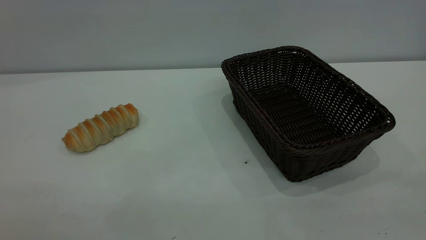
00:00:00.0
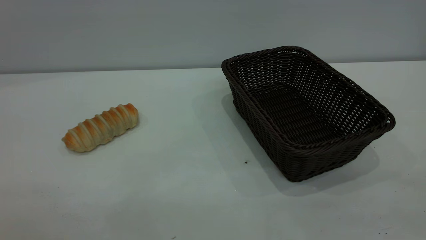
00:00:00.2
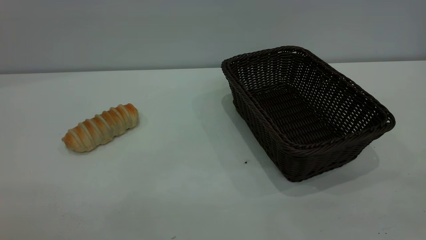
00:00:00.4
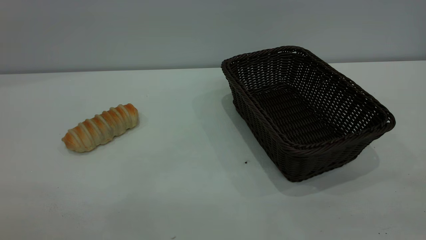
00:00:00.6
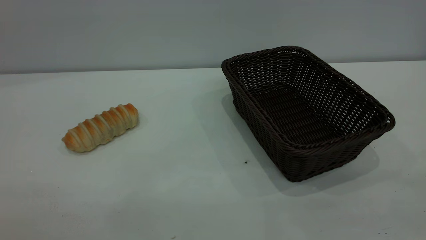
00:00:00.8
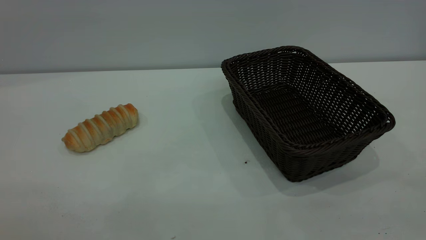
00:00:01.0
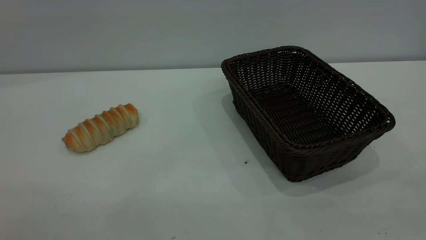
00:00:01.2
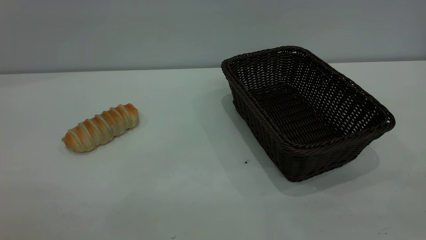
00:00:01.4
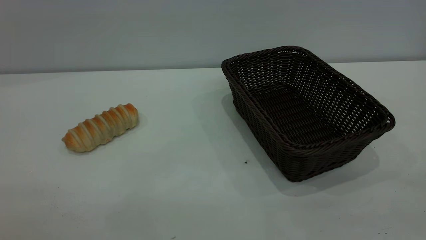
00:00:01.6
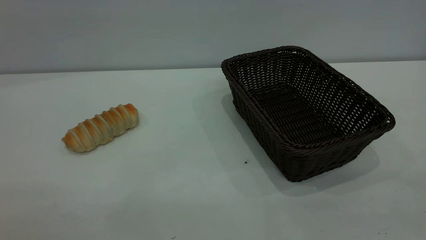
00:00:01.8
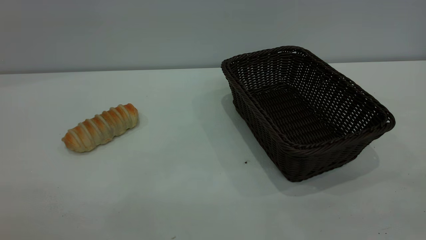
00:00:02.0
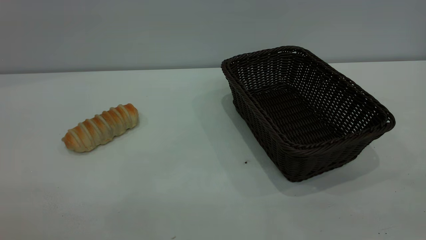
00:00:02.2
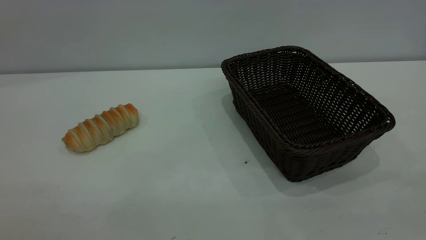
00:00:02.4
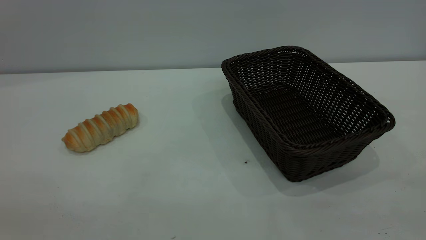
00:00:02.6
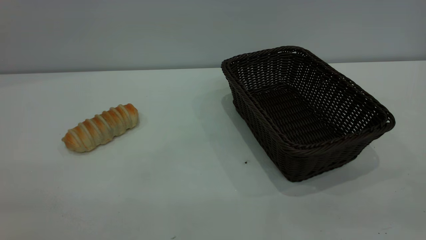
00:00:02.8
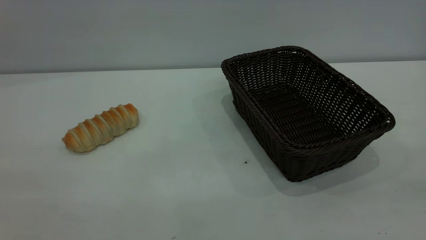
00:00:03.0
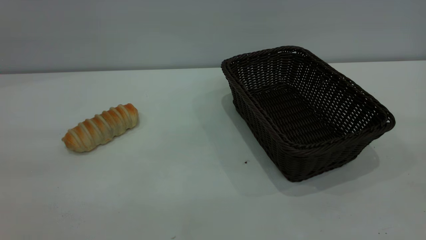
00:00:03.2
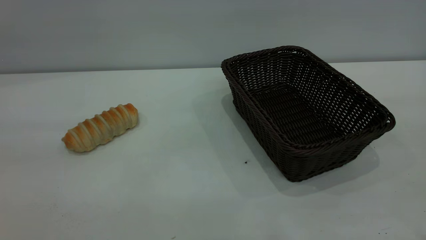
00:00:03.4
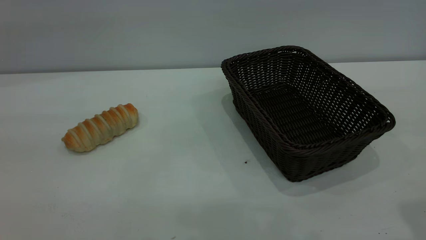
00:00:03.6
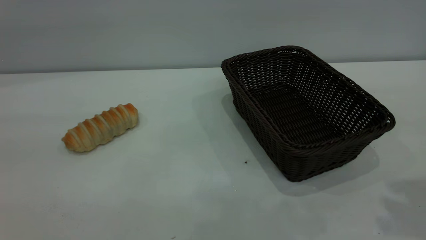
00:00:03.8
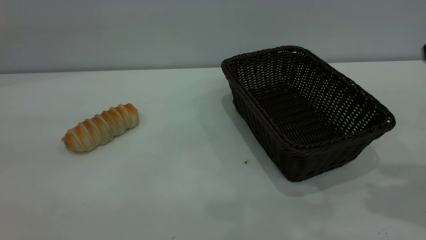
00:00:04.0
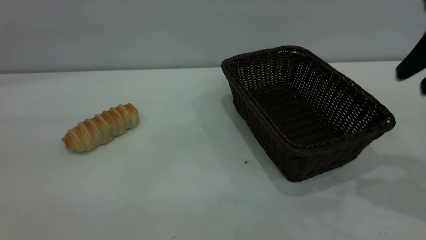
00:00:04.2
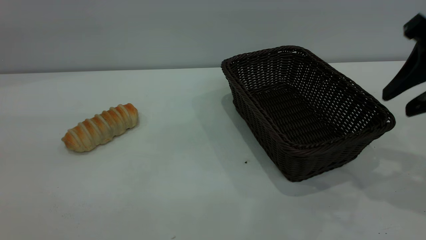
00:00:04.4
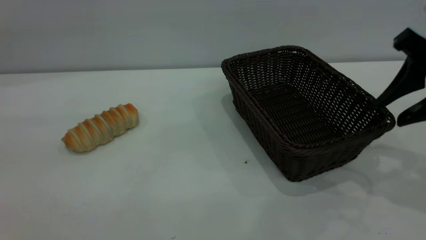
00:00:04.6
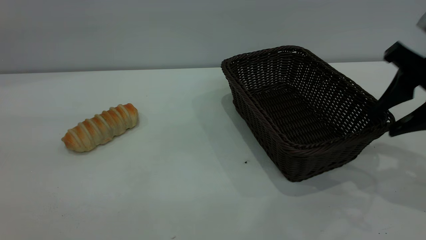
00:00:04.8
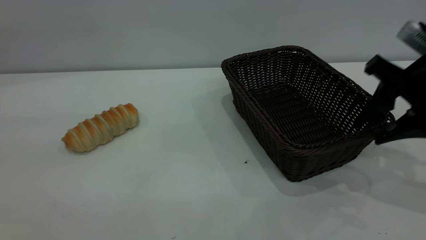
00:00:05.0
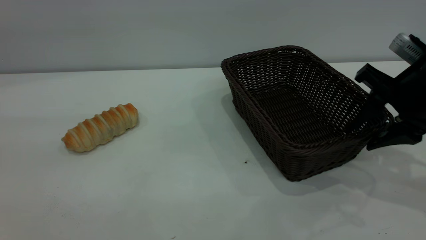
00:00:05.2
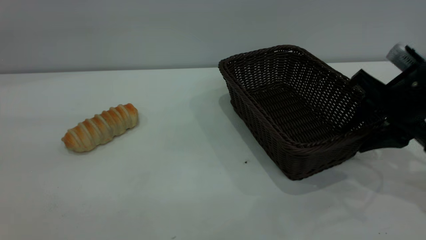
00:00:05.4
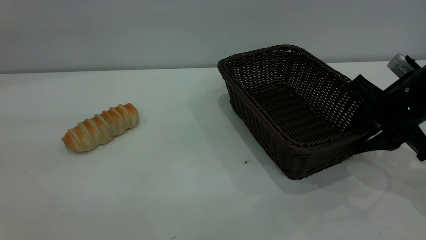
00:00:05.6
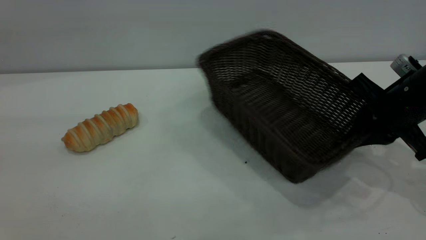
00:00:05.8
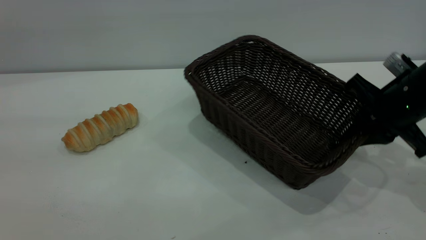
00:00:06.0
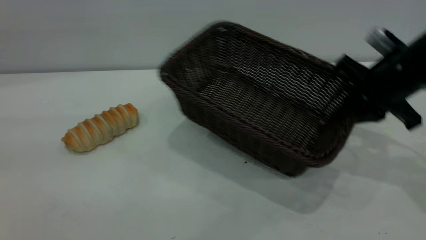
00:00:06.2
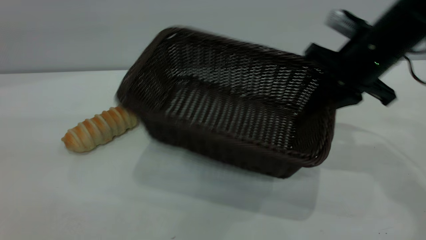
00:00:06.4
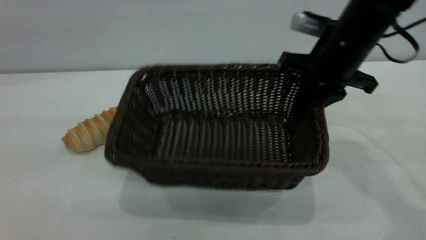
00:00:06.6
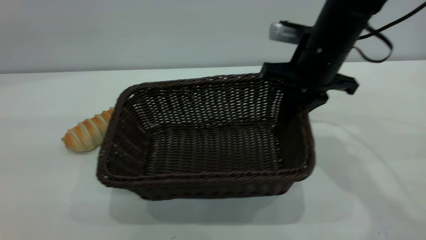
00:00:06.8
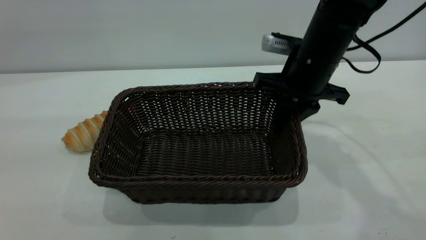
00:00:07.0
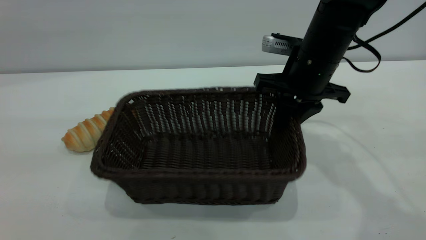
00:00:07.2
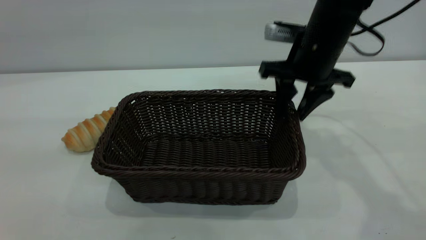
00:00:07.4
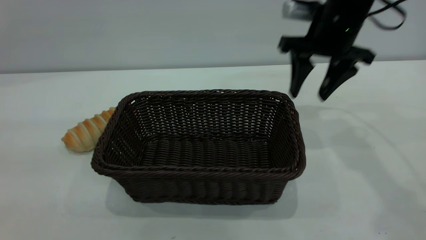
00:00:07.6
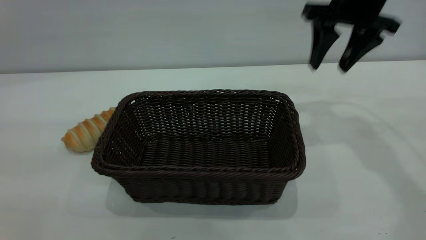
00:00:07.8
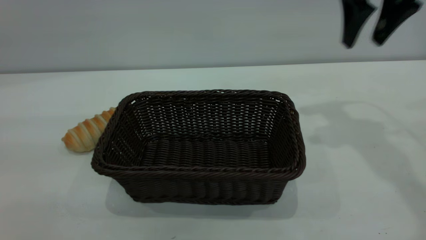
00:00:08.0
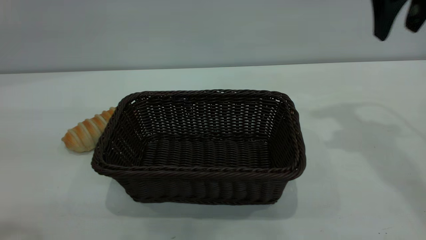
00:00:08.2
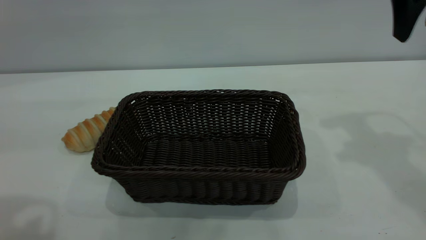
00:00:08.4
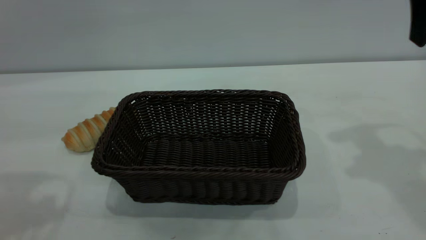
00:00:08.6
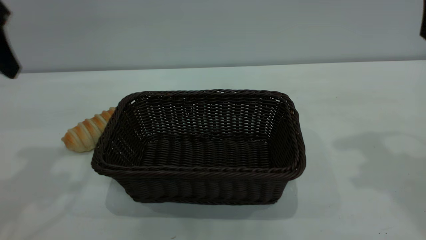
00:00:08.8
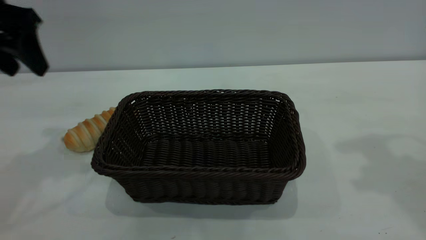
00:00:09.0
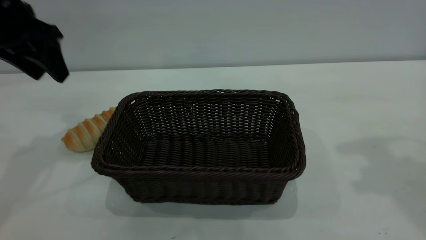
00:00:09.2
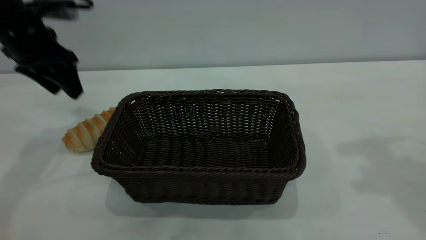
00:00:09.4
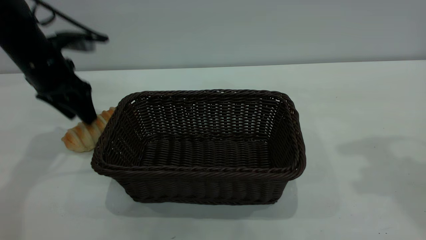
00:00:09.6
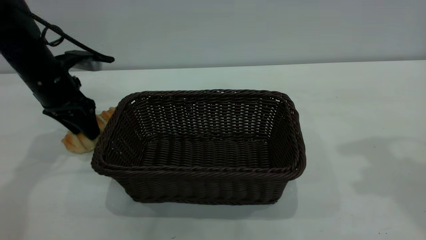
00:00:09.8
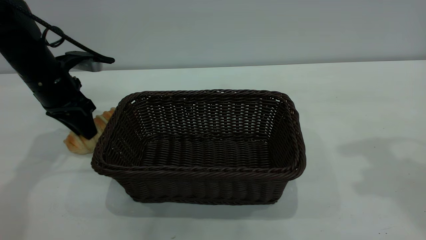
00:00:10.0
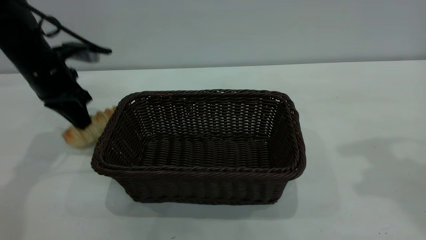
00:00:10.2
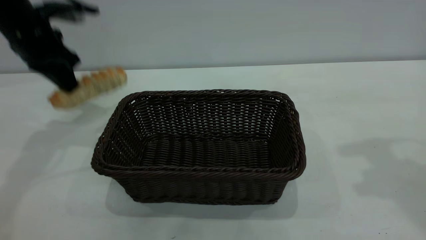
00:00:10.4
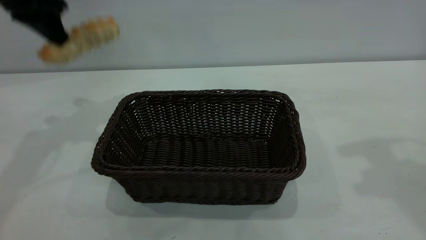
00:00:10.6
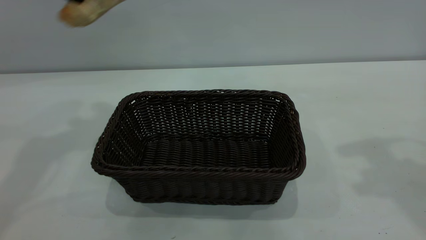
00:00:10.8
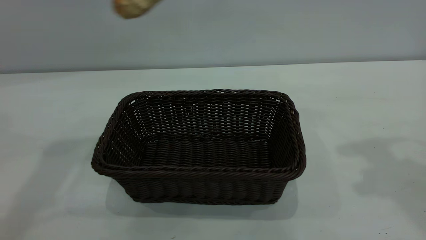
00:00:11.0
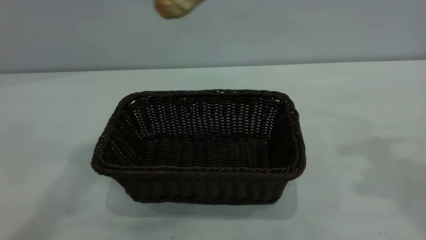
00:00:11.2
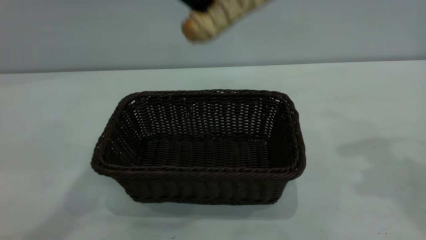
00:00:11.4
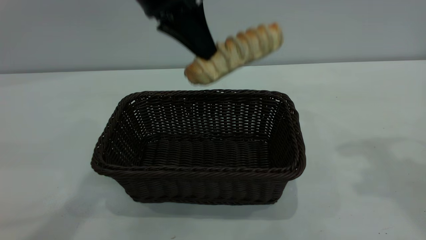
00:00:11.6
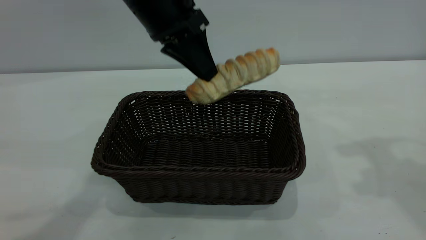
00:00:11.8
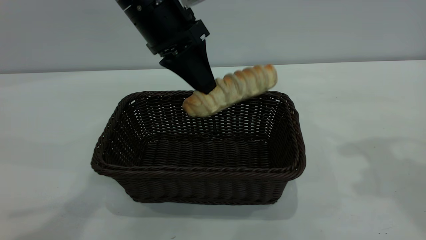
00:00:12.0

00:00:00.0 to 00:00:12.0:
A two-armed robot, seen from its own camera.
Task of the whole recording: One hand grasps the black basket and places it in the middle of the table, while the other hand picks up the long bread and puts it into the black basket.
Step, 00:00:00.0 to 00:00:07.4: Move the basket to the center of view.
00:00:00.0 to 00:00:01.6: Both grippers stay about where they are.
00:00:03.0 to 00:00:04.4: The right gripper heads forward and downward, covering some 30 cm.
00:00:04.4 to 00:00:06.0: The right gripper moves downward and forward, roughly 10 cm, and closes up.
00:00:06.0 to 00:00:07.6: The right gripper heads forward, to the left and upward, covering approximately 15 cm, and opens its fingers.
00:00:07.6 to 00:00:09.0: The left gripper moves forward, some 25 cm, while the right gripper moves upward, backward and to the right, some 20 cm.
00:00:09.0 to 00:00:10.4: The left gripper heads forward and downward, covering approximately 10 cm, and closes.
00:00:10.4 to 00:00:12.0: The left gripper goes roughly 20 cm to the right.

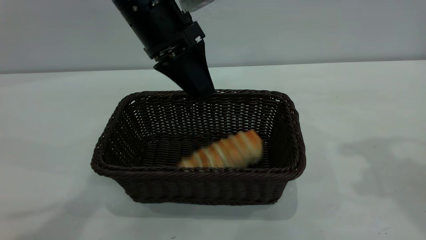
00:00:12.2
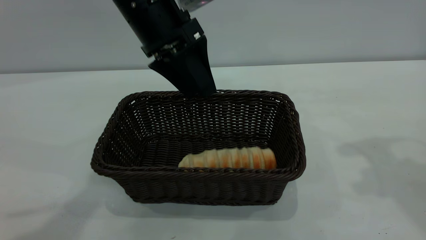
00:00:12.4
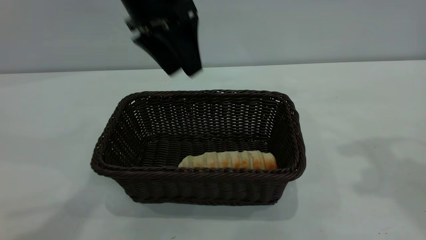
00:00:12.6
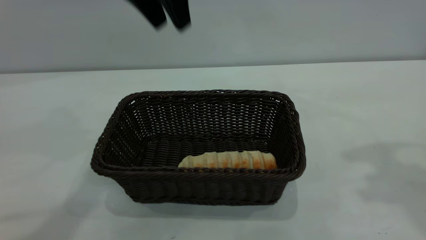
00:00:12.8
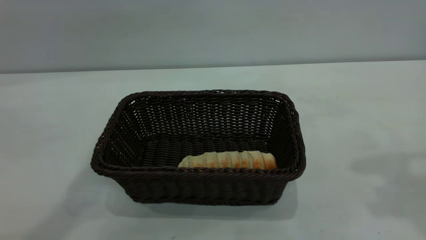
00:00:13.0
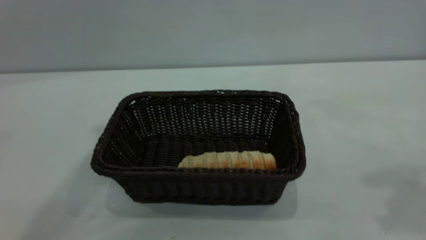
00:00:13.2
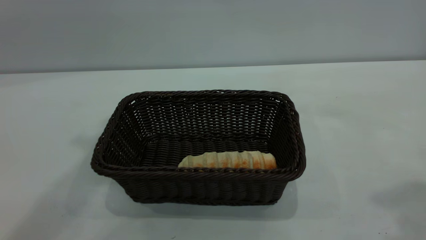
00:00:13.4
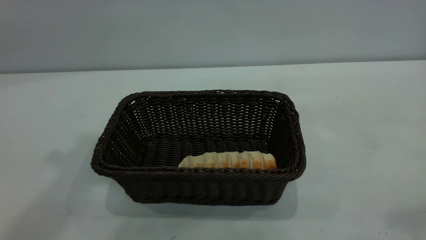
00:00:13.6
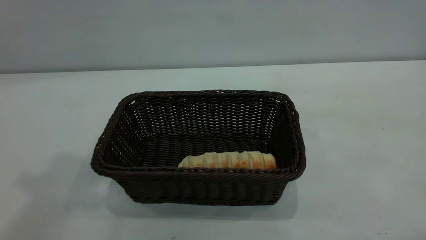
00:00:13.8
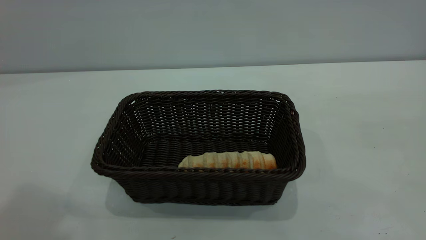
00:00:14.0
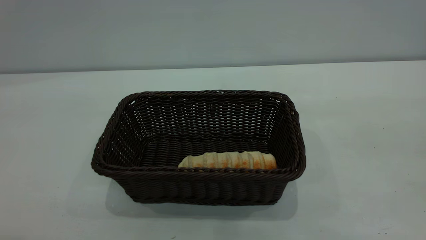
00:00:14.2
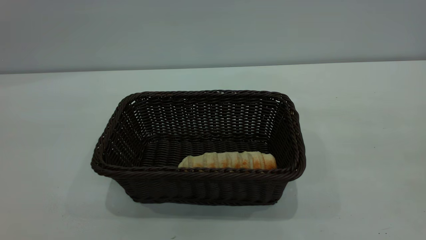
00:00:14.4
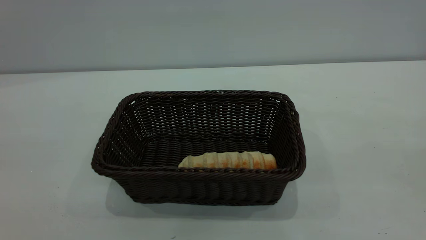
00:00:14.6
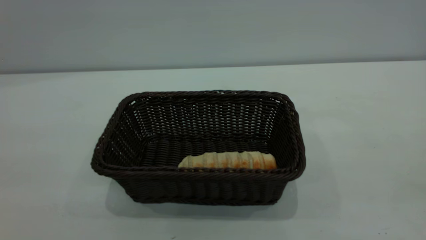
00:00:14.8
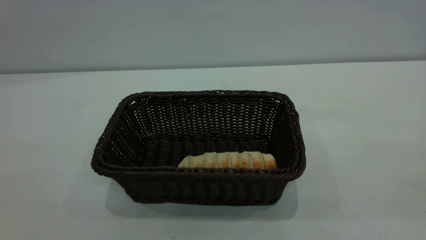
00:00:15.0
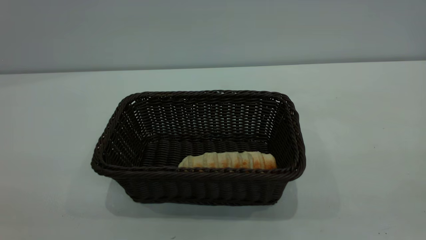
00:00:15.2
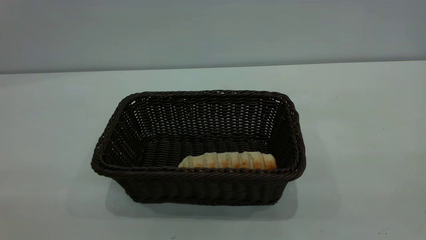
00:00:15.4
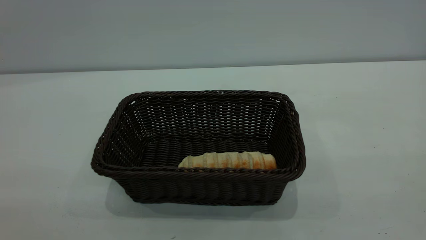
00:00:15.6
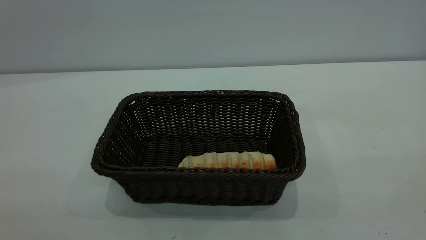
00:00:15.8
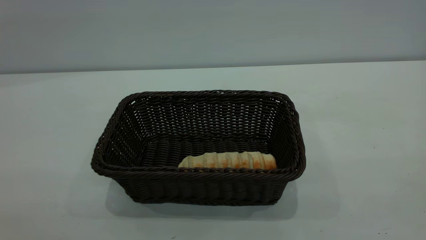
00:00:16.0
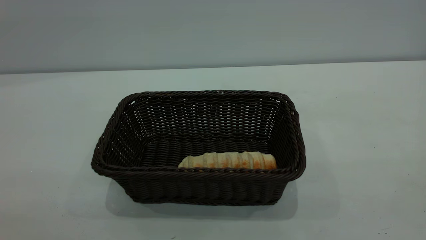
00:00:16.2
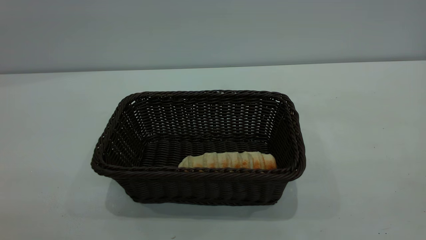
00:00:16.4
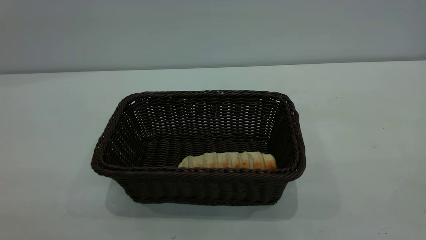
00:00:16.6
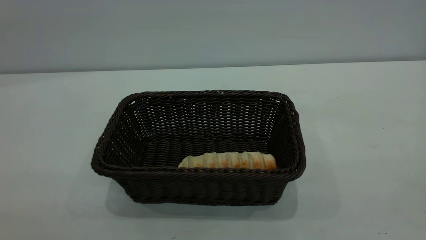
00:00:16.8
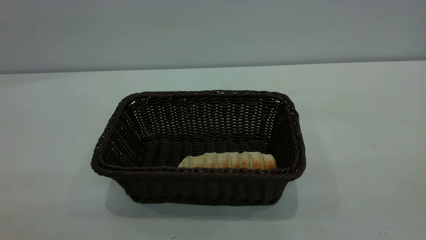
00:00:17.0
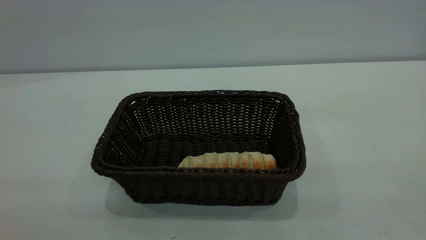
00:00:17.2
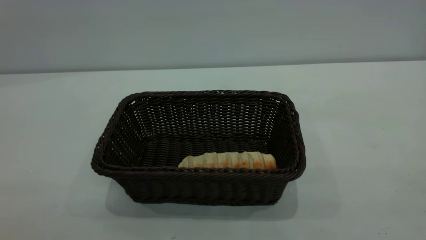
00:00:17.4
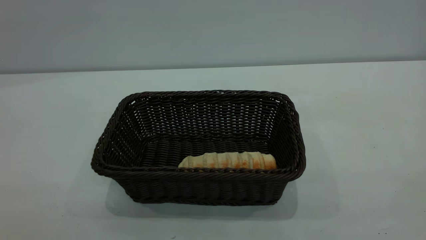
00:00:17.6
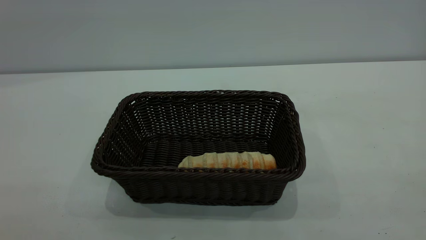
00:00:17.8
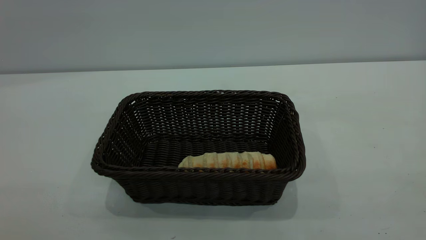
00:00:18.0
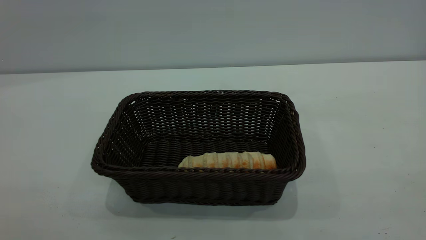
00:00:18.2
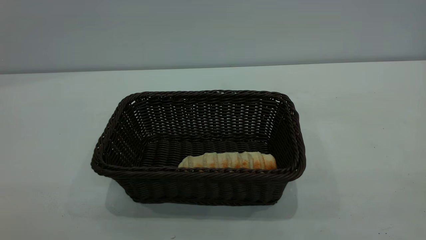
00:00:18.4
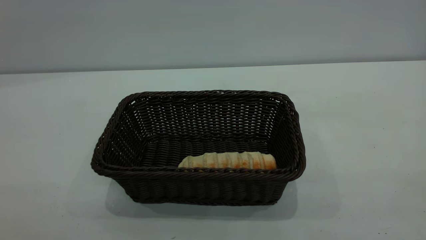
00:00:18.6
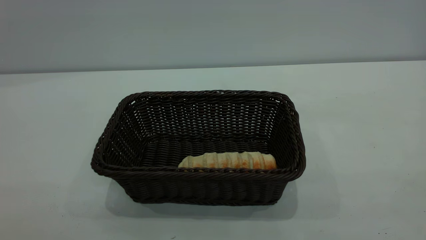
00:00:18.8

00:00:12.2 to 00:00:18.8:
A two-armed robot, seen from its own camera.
Task of the whole recording: One hand grasps the black basket and places it in the middle of the table, while the other hand picks up the long bread and puts it into the black basket.
00:00:12.2 to 00:00:13.8: The left gripper is displaced upward, backward and to the left by about 35 cm. Meanwhile the right gripper shifts some 20 cm backward and upward.
